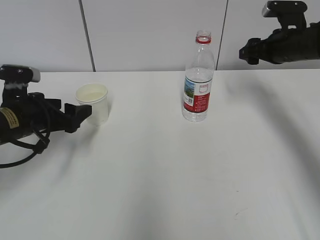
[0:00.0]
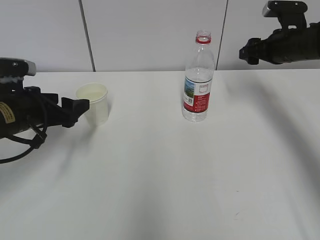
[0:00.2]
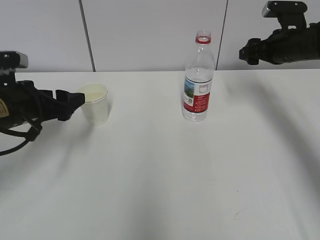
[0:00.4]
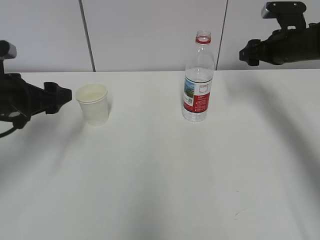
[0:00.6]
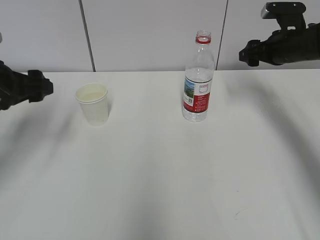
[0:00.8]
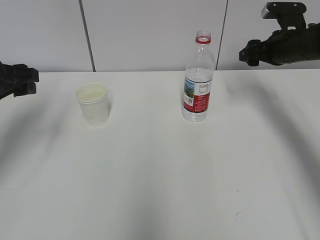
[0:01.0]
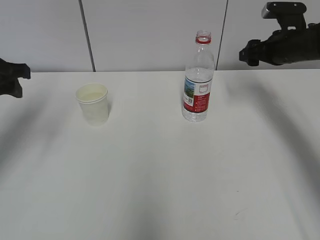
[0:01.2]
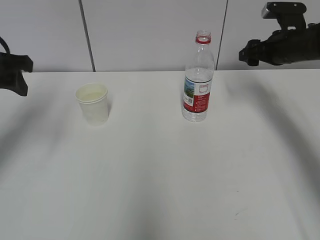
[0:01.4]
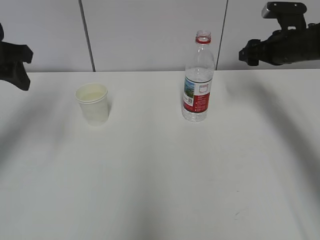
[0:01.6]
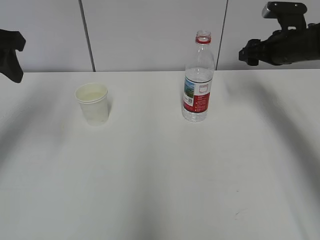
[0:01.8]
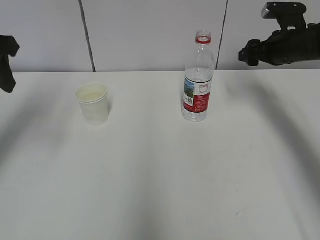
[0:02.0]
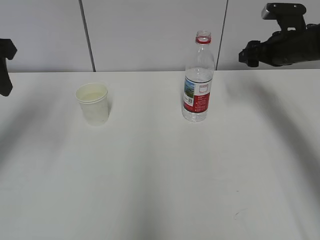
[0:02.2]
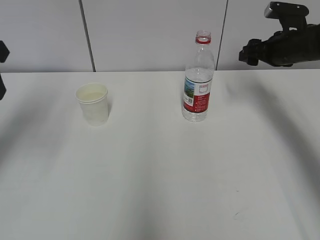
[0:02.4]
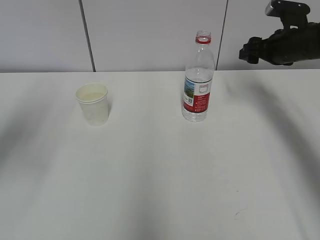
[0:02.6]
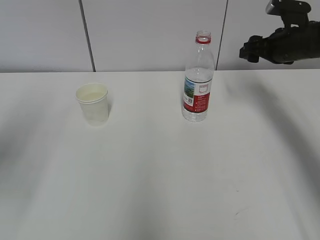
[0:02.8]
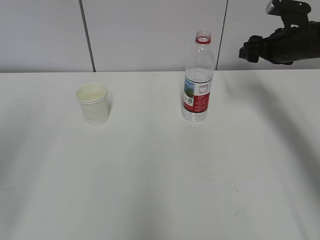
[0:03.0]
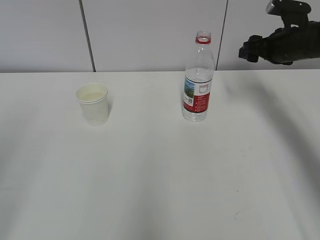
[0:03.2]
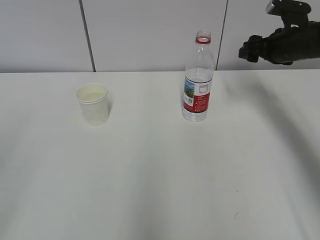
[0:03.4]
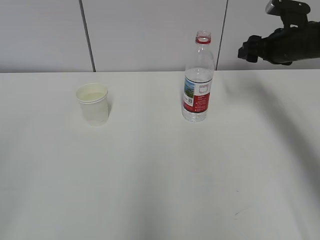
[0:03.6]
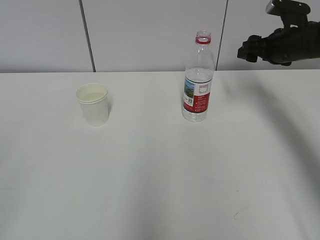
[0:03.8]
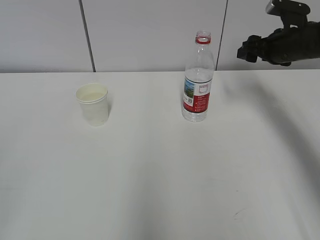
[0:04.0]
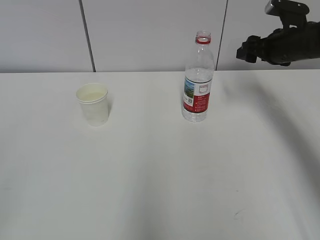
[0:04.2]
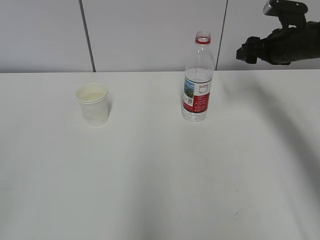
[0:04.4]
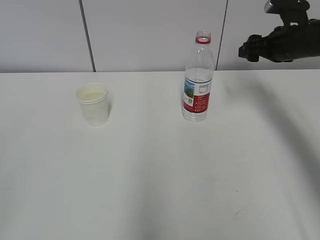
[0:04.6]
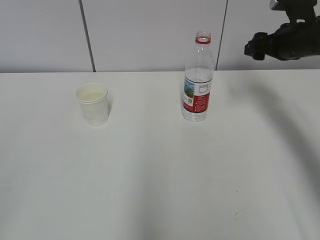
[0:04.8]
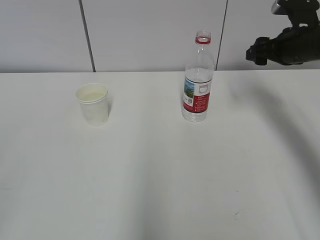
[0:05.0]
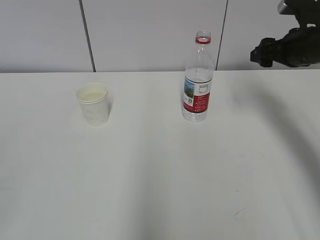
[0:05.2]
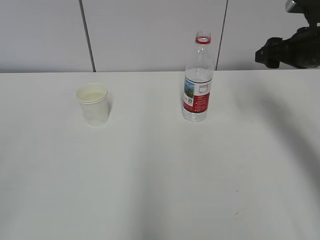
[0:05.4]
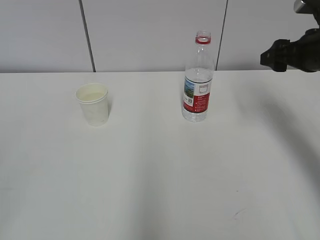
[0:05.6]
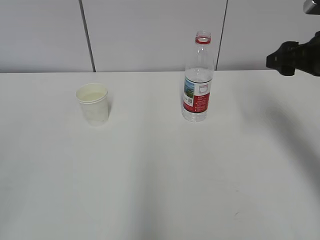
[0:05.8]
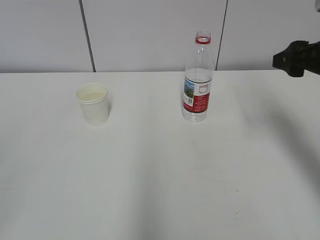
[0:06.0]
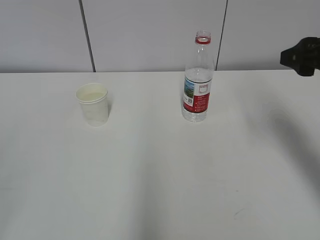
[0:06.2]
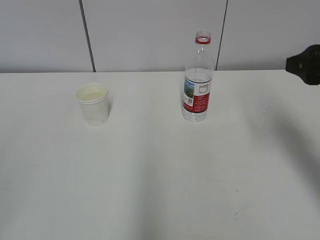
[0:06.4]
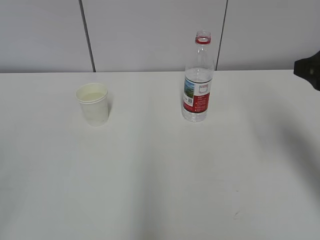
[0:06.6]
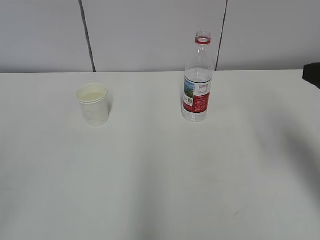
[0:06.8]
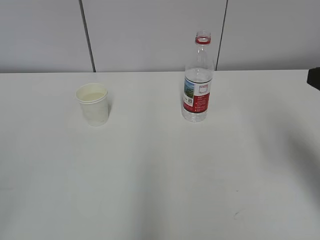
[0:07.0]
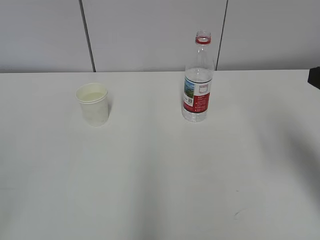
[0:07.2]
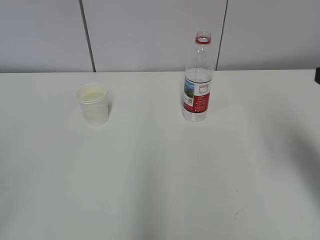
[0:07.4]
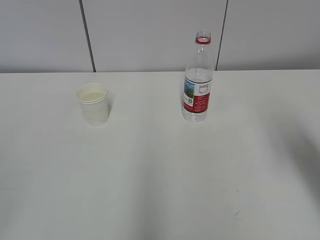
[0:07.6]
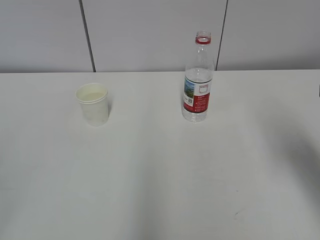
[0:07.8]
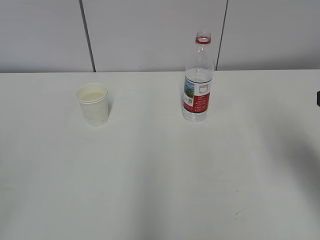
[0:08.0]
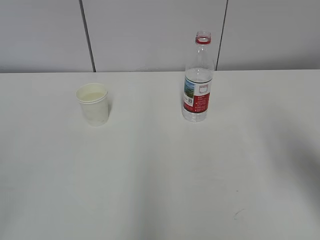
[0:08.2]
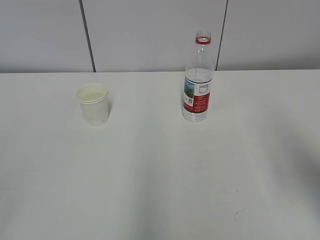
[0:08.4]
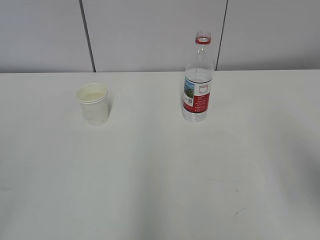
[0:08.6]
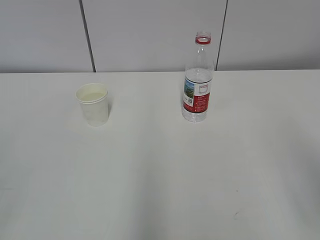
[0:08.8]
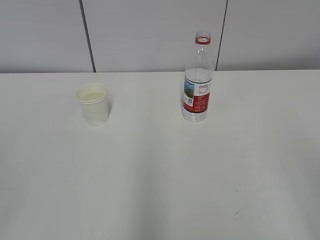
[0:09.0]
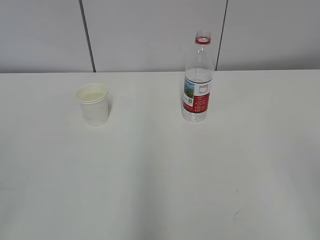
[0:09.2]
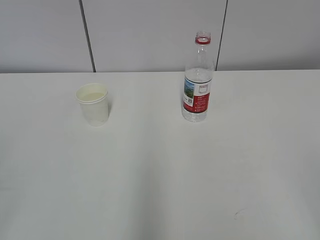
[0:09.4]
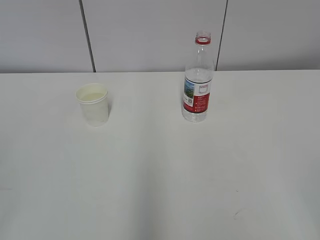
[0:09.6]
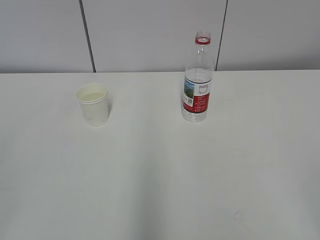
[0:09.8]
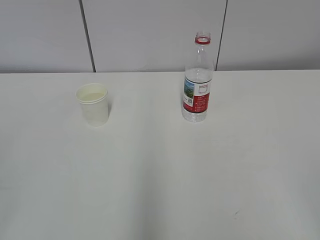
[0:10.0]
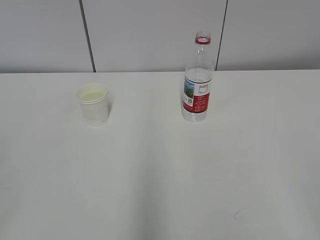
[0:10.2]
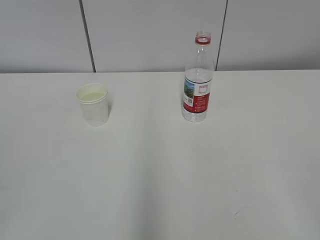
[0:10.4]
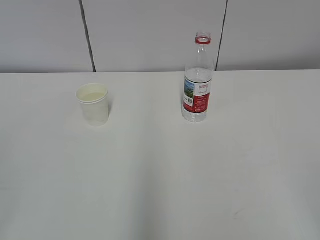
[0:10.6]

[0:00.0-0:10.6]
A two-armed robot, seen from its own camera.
0:00.0 to 0:01.6: The left gripper travels upward by about 15 cm.
0:01.6 to 0:03.0: The left gripper shifts some 15 cm backward.
0:04.6 to 0:06.0: The right gripper shifts roughly 15 cm backward.
0:06.0 to 0:07.6: The right gripper heads backward, covering approximately 10 cm.
0:07.6 to 0:09.0: The right gripper is displaced backward by about 15 cm.

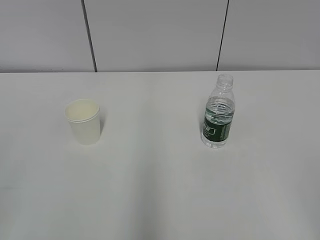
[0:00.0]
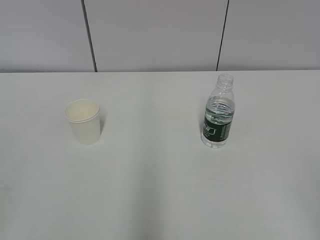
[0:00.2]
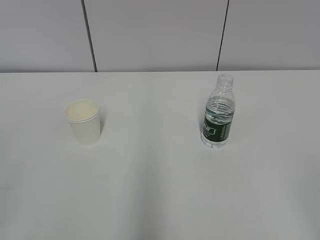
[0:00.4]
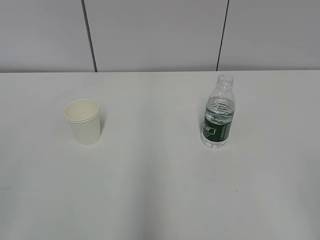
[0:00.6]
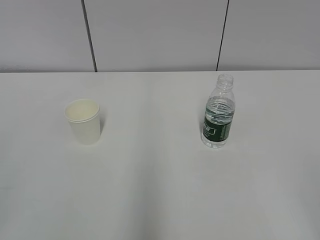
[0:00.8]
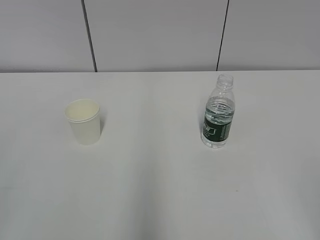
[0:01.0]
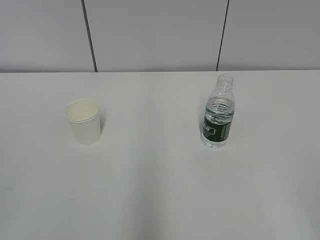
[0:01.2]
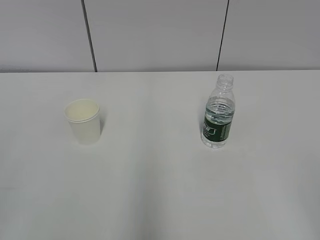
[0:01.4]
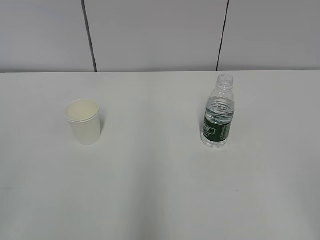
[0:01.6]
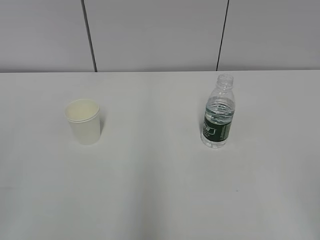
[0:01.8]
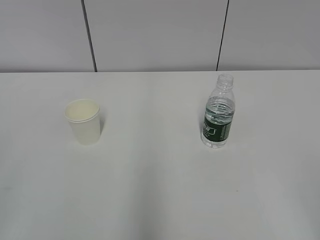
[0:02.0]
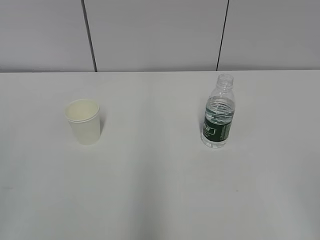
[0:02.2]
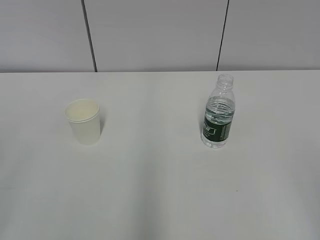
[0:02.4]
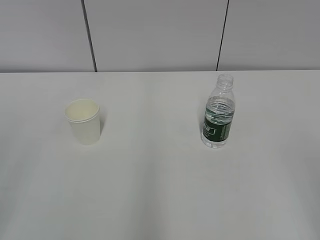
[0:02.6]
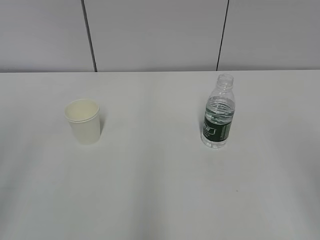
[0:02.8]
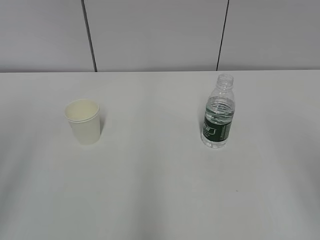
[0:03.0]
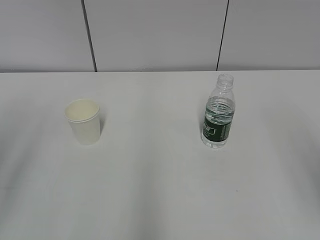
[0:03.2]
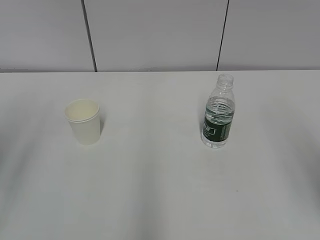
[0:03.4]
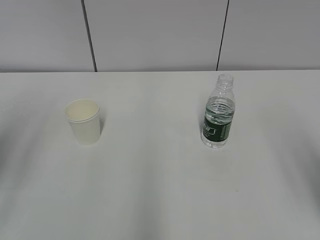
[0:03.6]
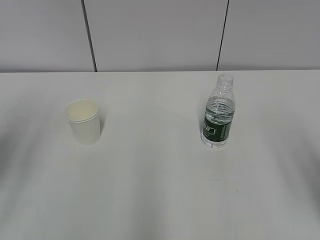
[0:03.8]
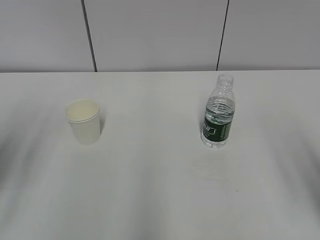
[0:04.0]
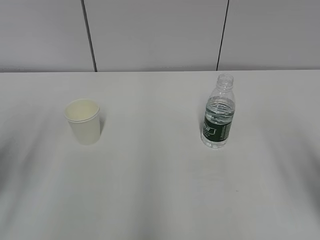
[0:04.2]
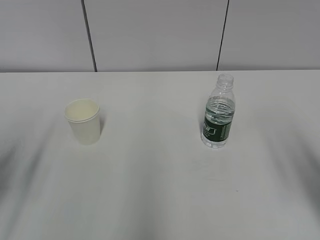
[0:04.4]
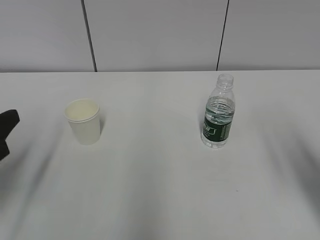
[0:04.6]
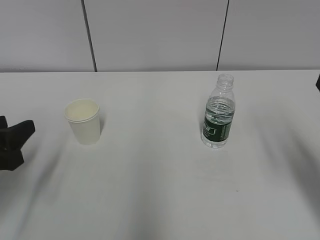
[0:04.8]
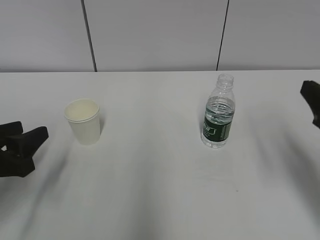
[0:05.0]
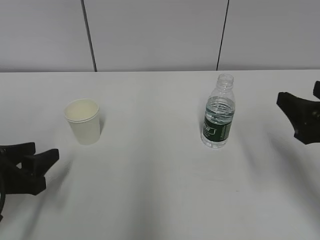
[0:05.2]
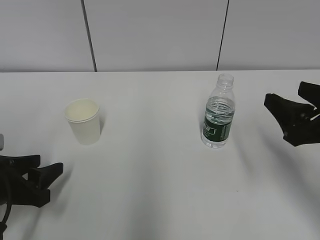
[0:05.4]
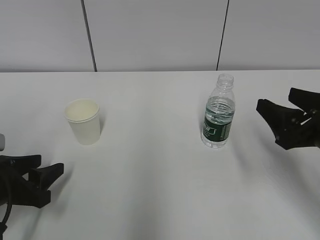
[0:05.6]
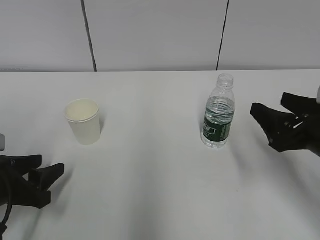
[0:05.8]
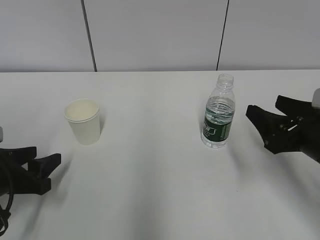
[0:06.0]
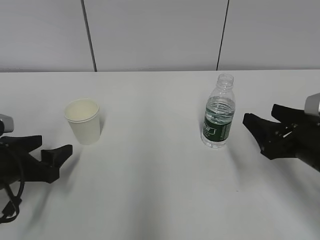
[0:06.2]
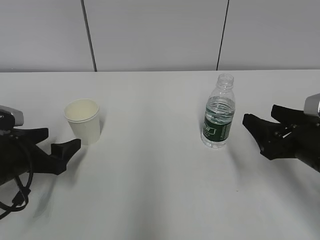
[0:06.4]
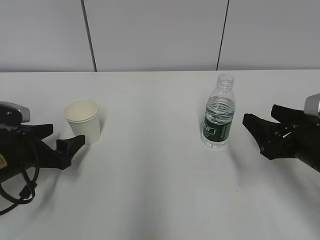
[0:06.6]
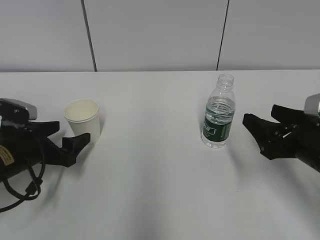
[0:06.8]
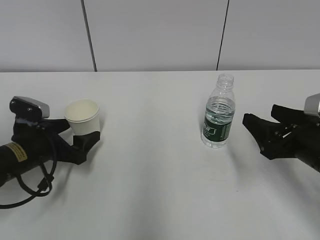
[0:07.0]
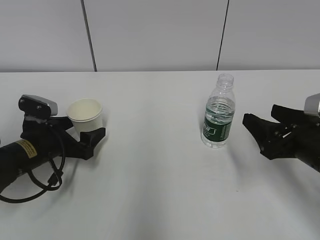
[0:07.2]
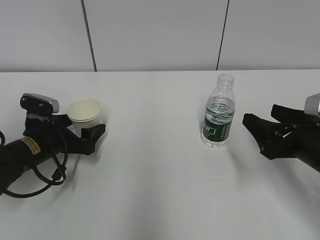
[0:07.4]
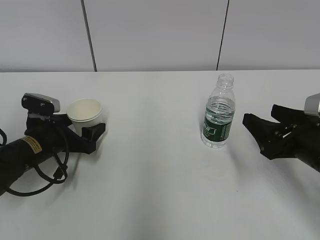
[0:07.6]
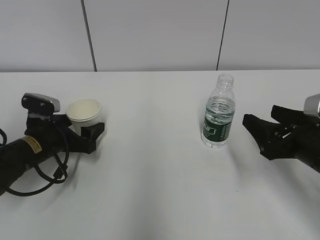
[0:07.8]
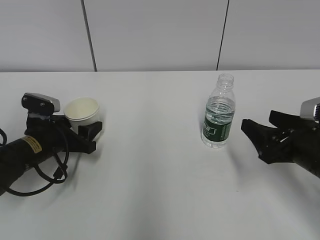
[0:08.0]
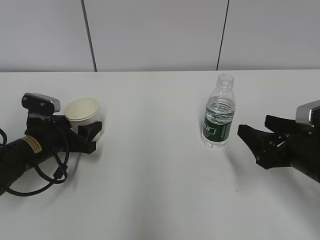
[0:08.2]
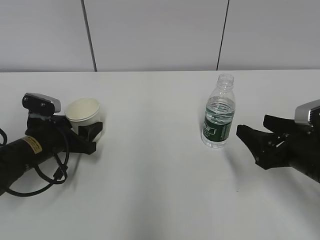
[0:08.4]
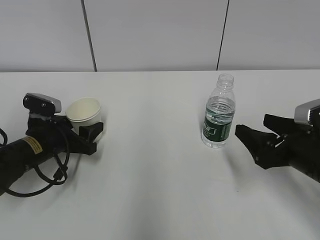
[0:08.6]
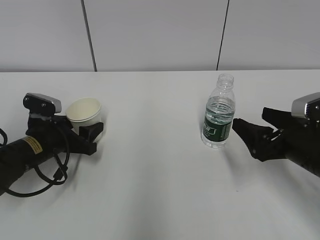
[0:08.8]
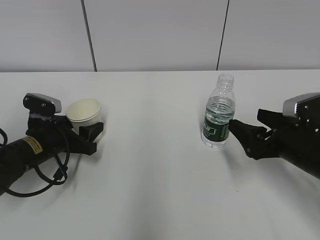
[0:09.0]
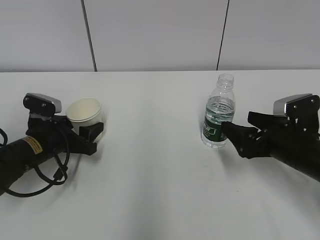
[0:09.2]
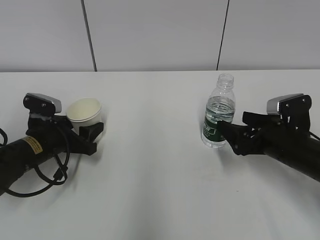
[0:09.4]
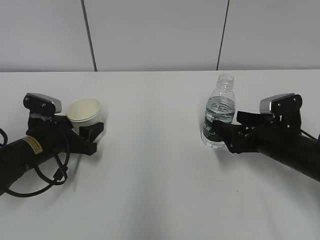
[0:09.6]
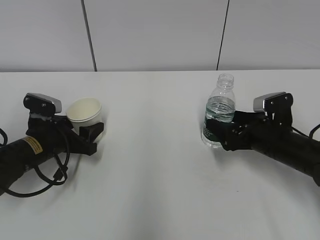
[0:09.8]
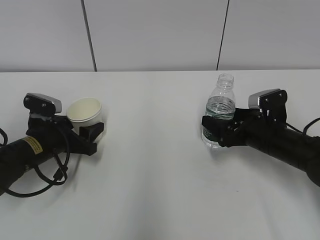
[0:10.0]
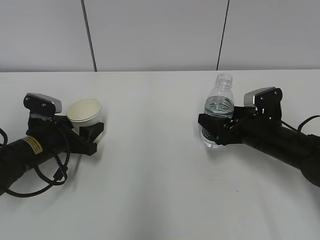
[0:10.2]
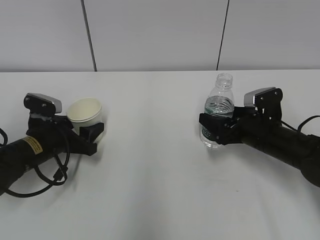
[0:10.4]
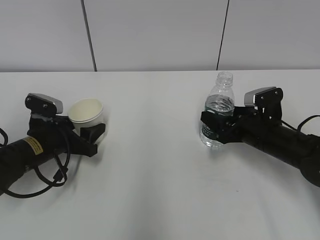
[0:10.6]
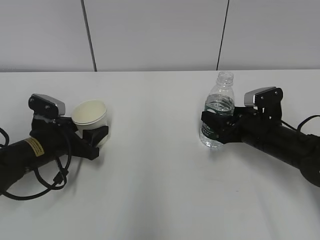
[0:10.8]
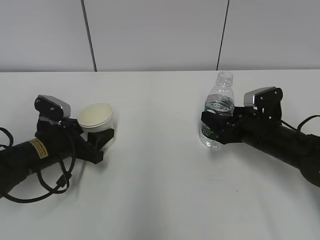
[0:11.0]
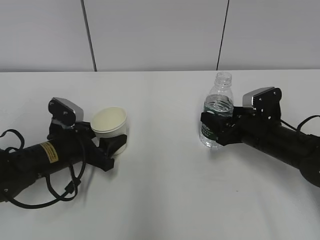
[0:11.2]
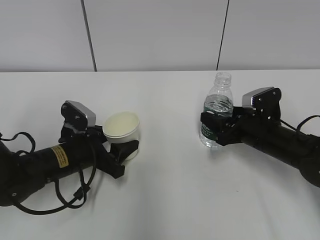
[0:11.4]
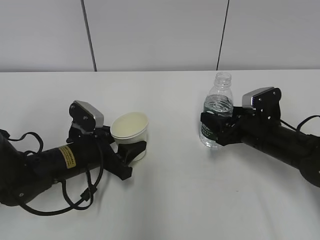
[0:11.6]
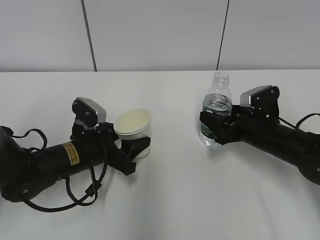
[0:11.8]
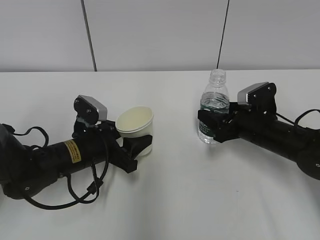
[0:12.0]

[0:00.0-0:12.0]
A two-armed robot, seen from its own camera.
Step, 0:00.0 to 0:08.8: Grab the paper cup with the left hand.
Step, 0:09.0 to 0:09.8: Grab the water bottle with the right hand.
0:03.0 to 0:04.4: The right gripper goes approximately 10 cm forward and downward. The left gripper travels downward and forward by about 15 cm, and closes its fingers.
0:04.4 to 0:06.0: The right gripper is displaced downward and forward by about 15 cm; the left gripper goes roughly 10 cm downward.
0:06.0 to 0:07.6: The left gripper goes about 10 cm forward, and opens its fingers.
0:07.6 to 0:09.0: The right gripper opens up, while the left gripper closes its fingers.
0:09.0 to 0:10.4: The right gripper travels forward by some 10 cm.
0:10.4 to 0:12.0: The right gripper closes, while the left gripper shifts approximately 10 cm to the right.
